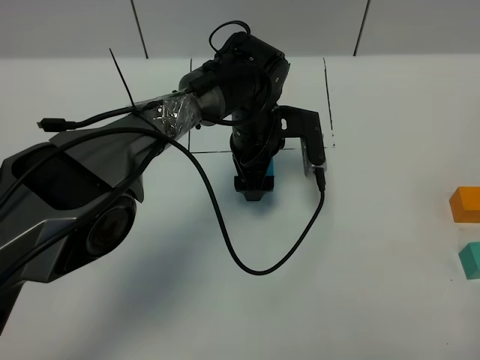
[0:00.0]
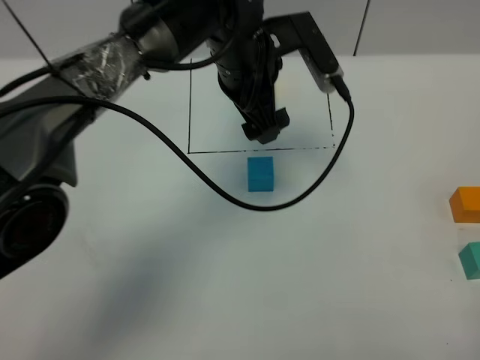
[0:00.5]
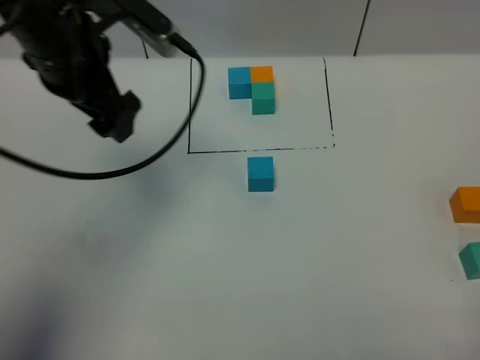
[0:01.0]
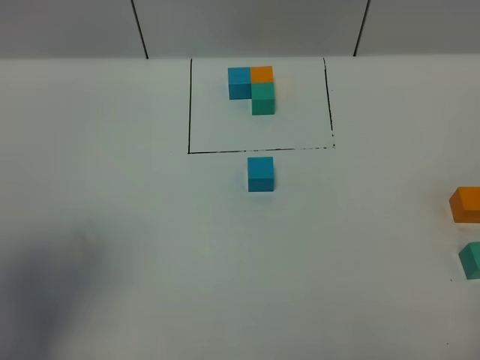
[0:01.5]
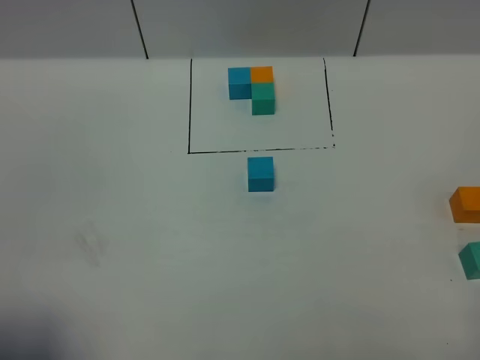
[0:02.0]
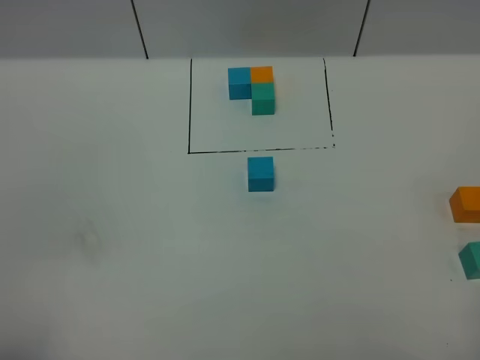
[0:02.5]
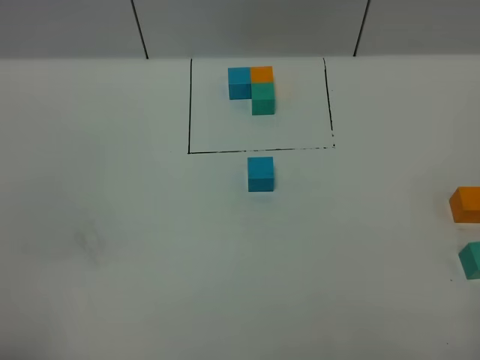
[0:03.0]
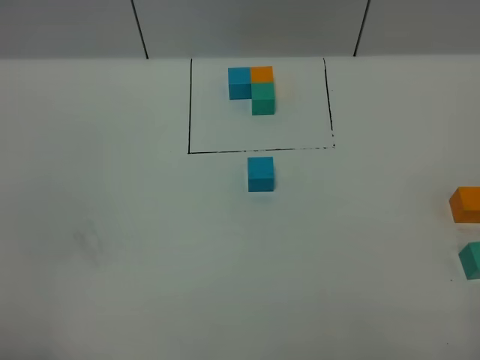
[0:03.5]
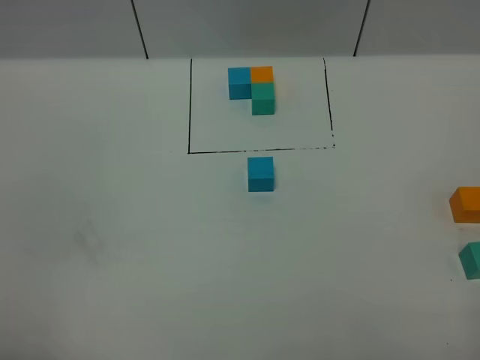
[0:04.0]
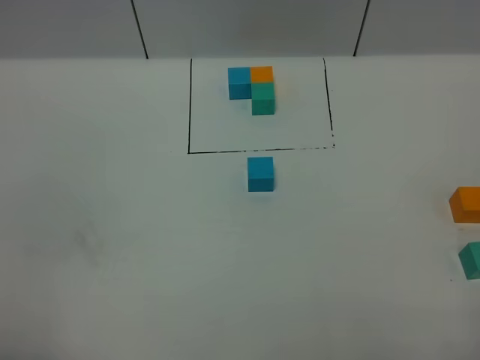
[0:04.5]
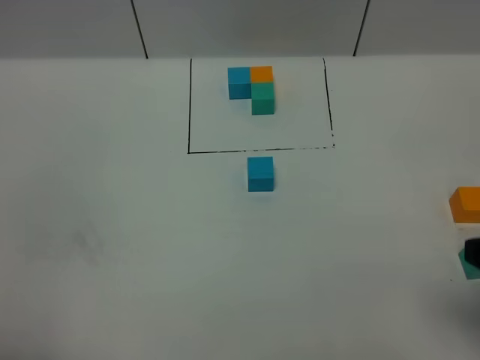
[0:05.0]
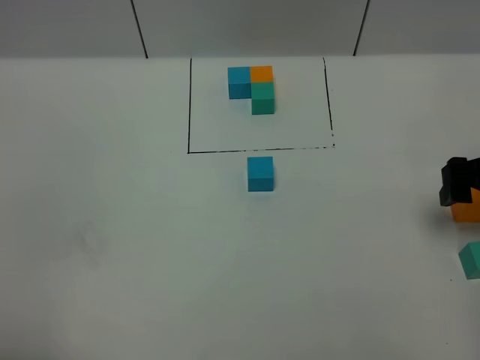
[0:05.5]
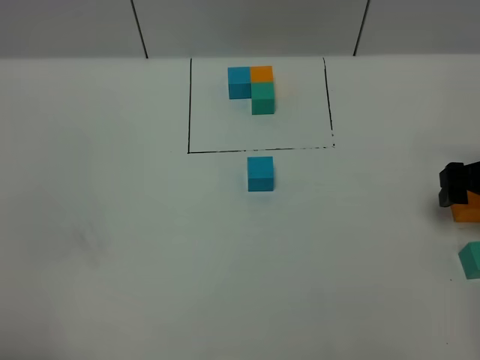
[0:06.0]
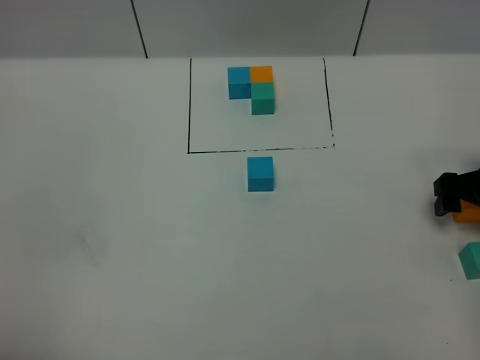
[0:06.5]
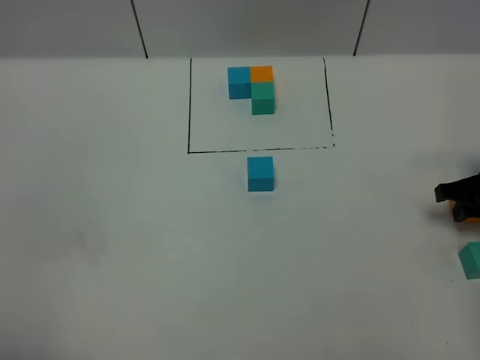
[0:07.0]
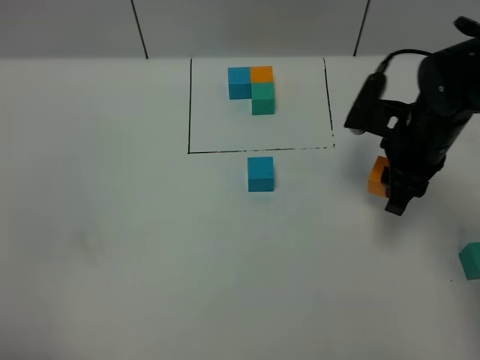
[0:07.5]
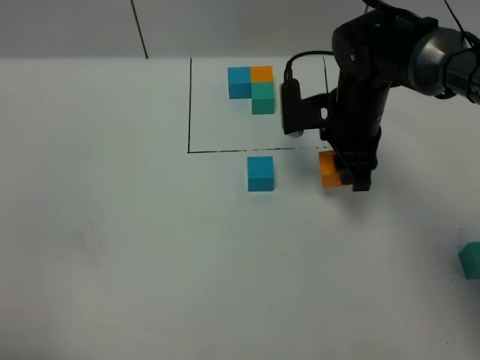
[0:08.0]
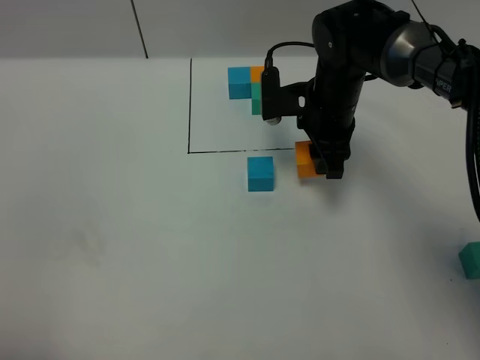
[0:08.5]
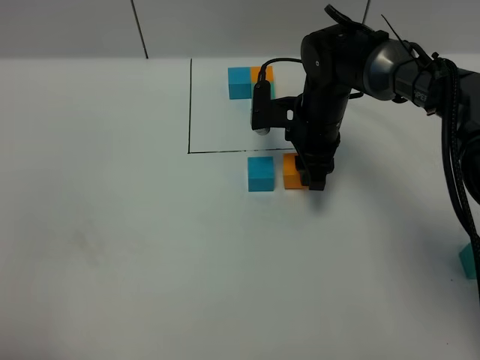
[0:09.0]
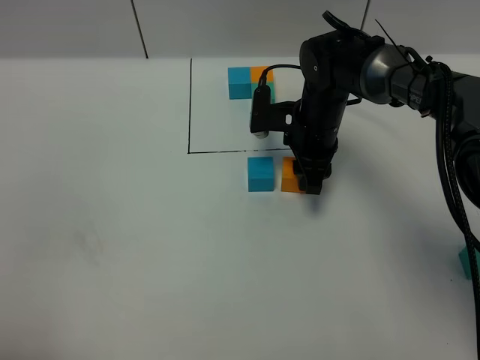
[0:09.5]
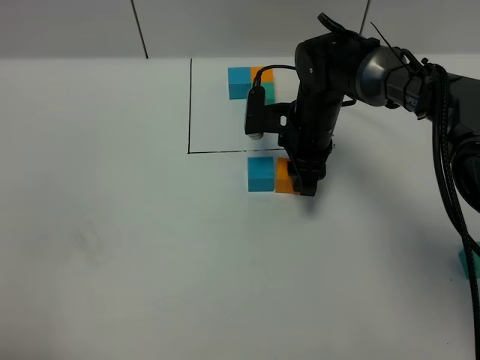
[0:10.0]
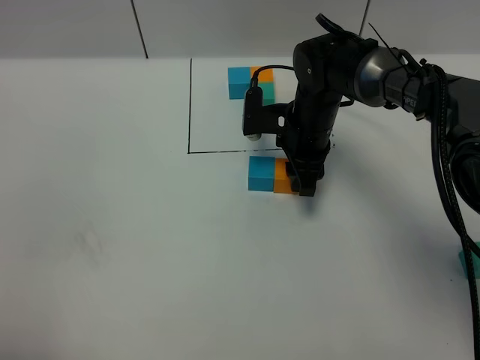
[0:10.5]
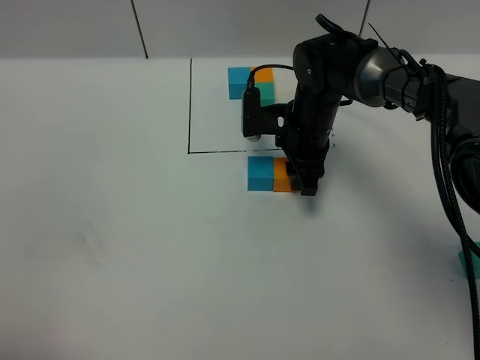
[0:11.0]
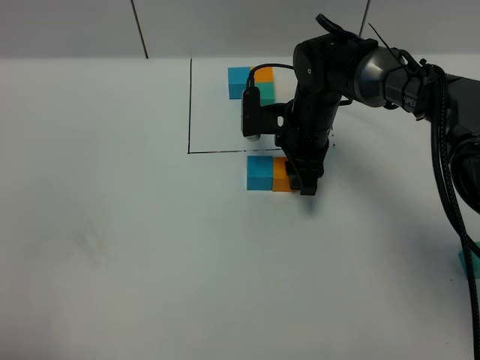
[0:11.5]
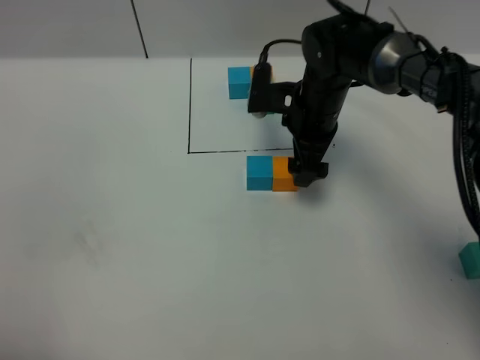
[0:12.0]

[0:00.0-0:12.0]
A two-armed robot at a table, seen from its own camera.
Task of the whole recording: According to the building block template in front, assemble the scattered blocks together.
Step, 0:00.0 to 0:11.5: Put the orange build block on the right of the blue build block.
0:00.0 to 0:02.0: The left gripper goes some 50 cm backward, to the left and upward.
0:02.0 to 0:04.0: The left gripper goes some 5 cm backward.
0:04.0 to 0:06.0: The right gripper shifts some 30 cm forward.
0:06.0 to 0:08.0: The right gripper is displaced to the left and forward by roughly 20 cm, and closes.
0:08.0 to 0:10.0: The right gripper travels downward by roughly 5 cm.
0:10.0 to 0:12.0: The right gripper opens up.

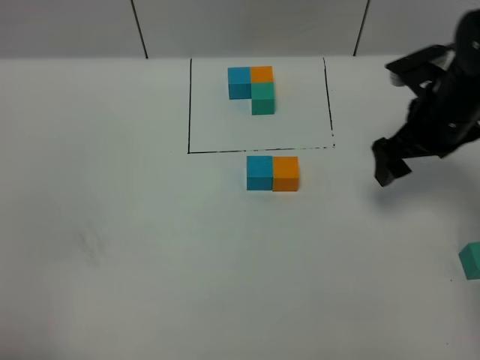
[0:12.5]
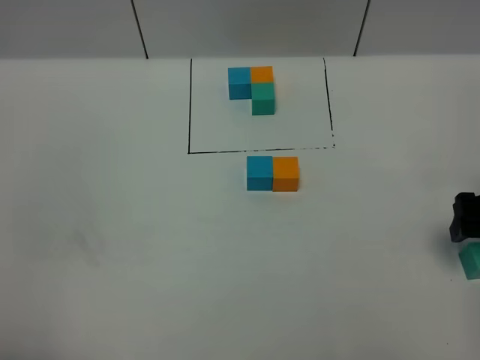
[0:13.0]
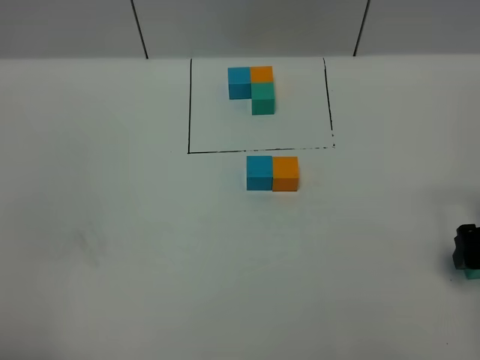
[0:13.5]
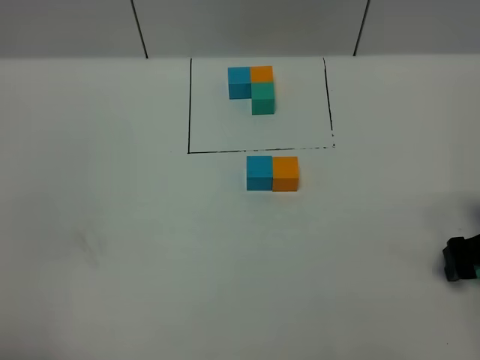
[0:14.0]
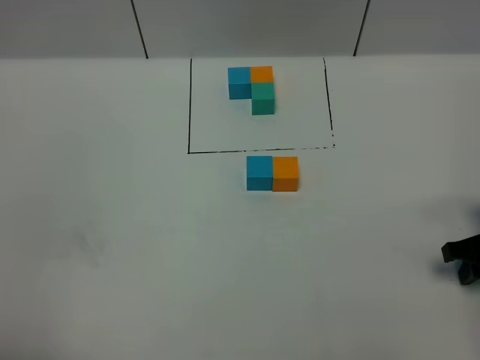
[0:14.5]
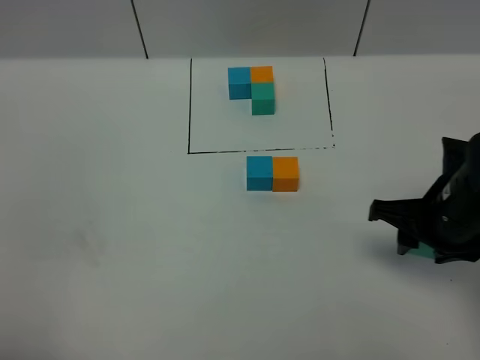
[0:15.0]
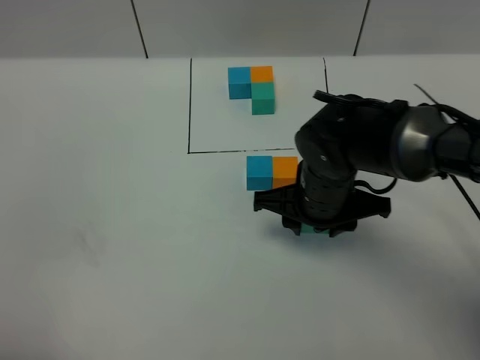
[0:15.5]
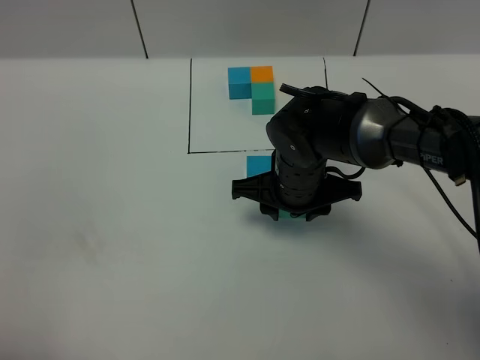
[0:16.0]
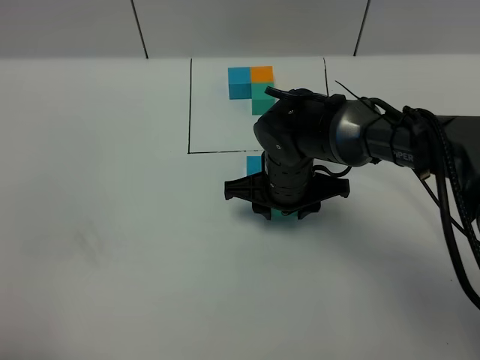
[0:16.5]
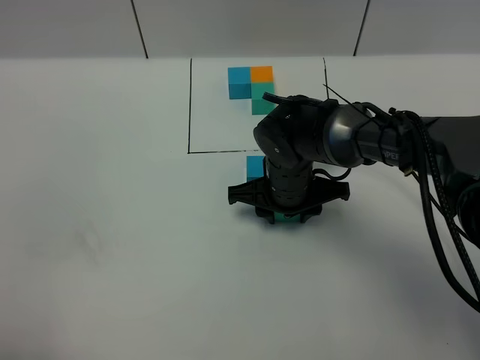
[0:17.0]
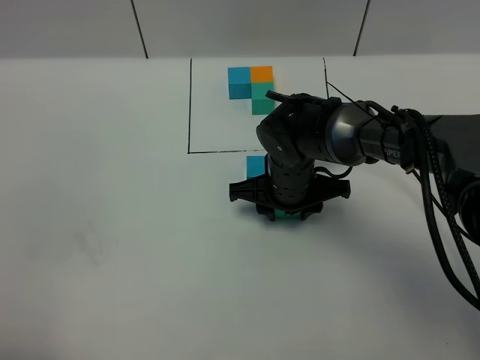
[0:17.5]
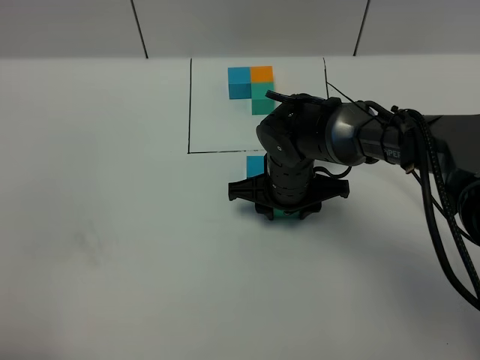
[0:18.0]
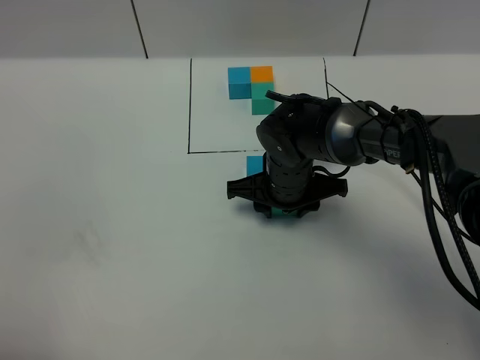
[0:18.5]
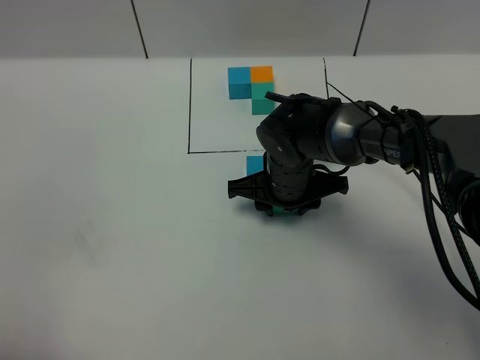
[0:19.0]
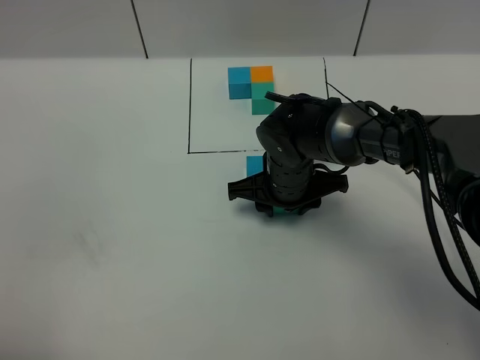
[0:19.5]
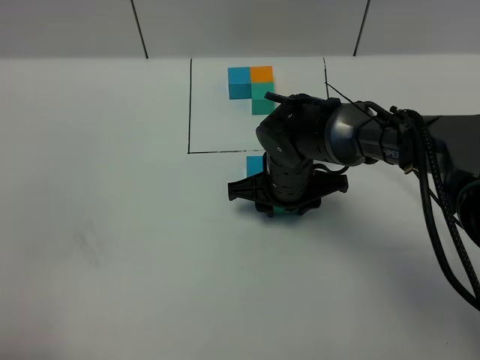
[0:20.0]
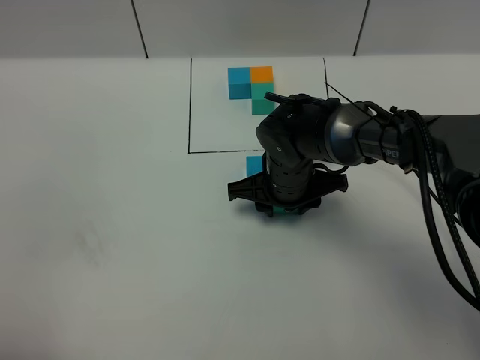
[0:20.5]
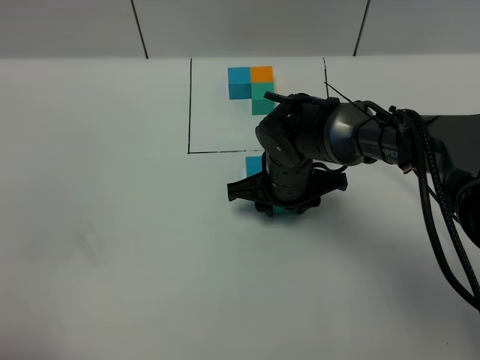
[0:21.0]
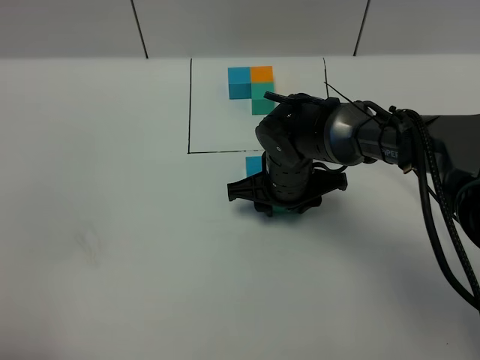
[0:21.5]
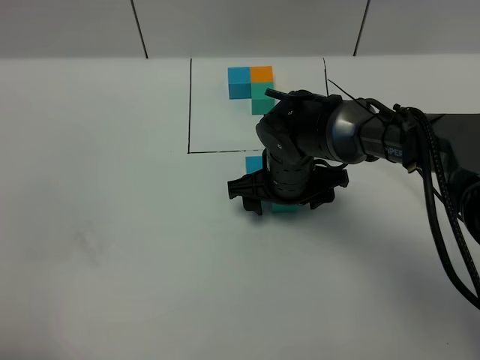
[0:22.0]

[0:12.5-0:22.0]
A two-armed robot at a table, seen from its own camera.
Task of the whole recording: According to the building block template in front, assemble the scattered blocks together.
Step, 0:12.5 to 0:22.0: Put the green build block on the behind of the orange build block.
0:12.5 to 0:14.5: The right gripper moves backward, downward and to the right, roughly 15 cm, and closes.
0:14.5 to 0:16.5: The right gripper moves to the left, about 25 cm.
0:16.5 to 0:18.0: The grippers make only small movements.
0:18.0 to 0:20.0: The two grippers keep their place.
0:20.0 to 0:22.0: The right gripper opens up.

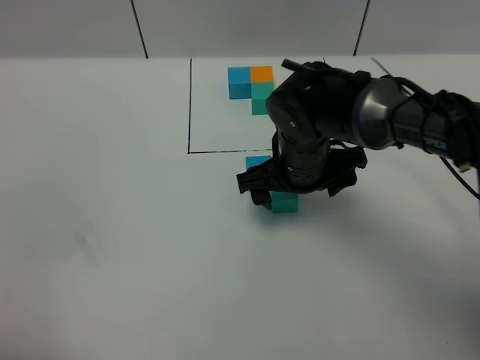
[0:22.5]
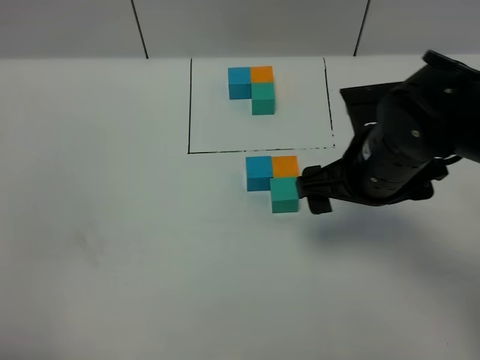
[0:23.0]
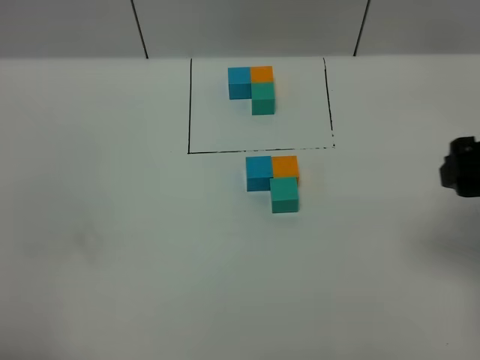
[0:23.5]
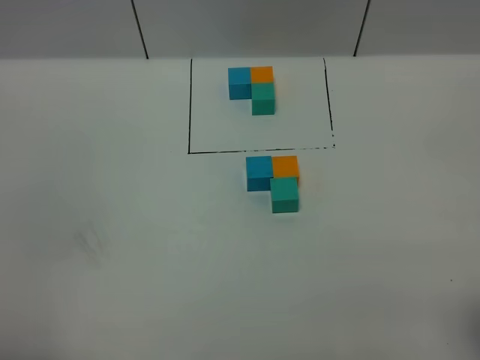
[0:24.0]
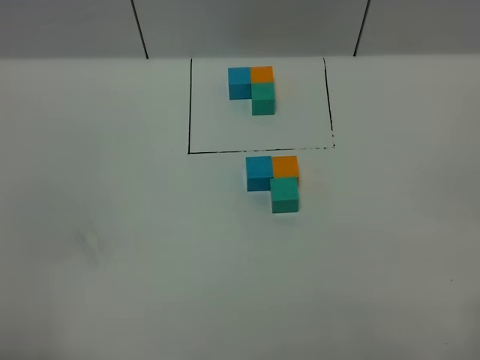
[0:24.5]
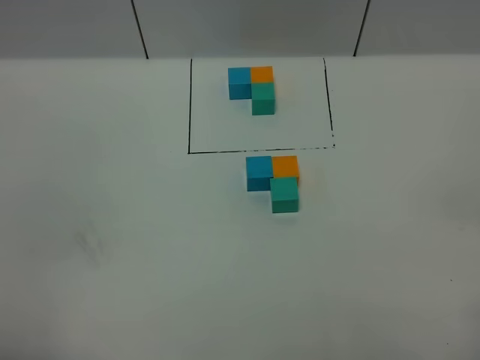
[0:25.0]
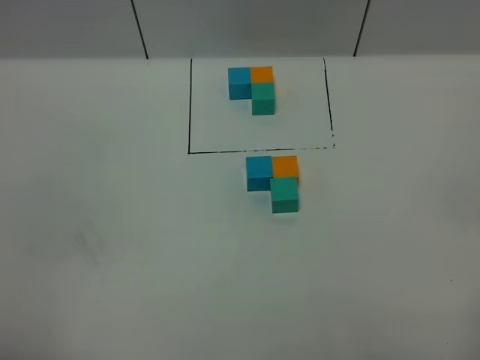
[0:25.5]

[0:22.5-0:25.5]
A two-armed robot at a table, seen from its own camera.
Task of the whole recording: According to the building block template in front, assemble the scattered blocks together.
0:22.5 to 0:24.0: The right gripper travels backward, to the right and upward by approximately 35 cm.
